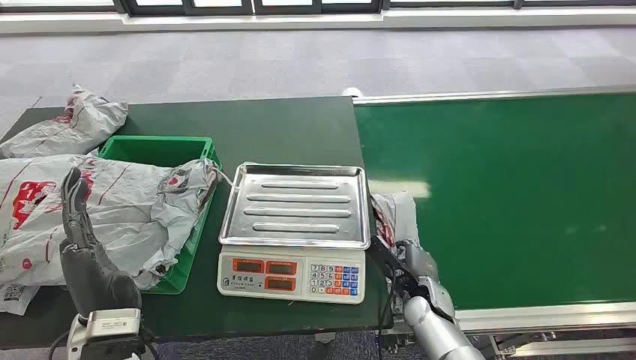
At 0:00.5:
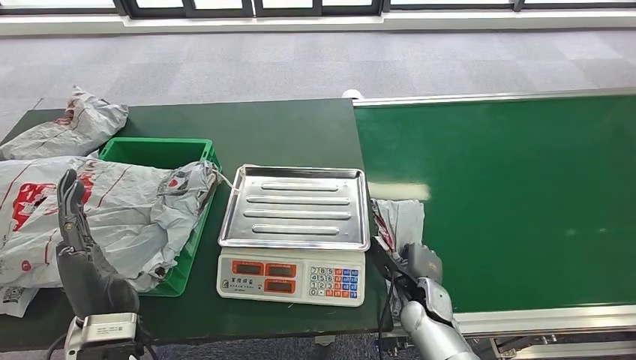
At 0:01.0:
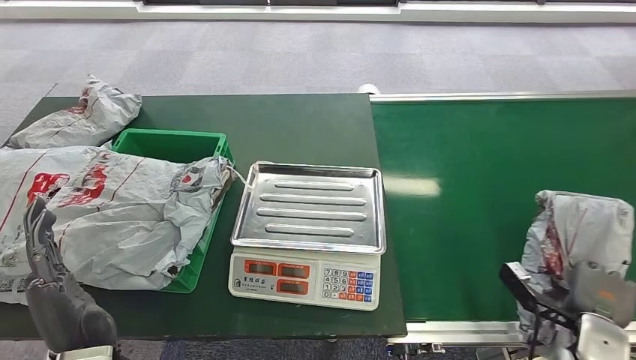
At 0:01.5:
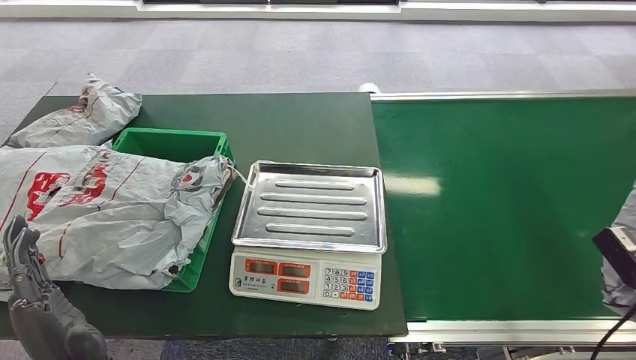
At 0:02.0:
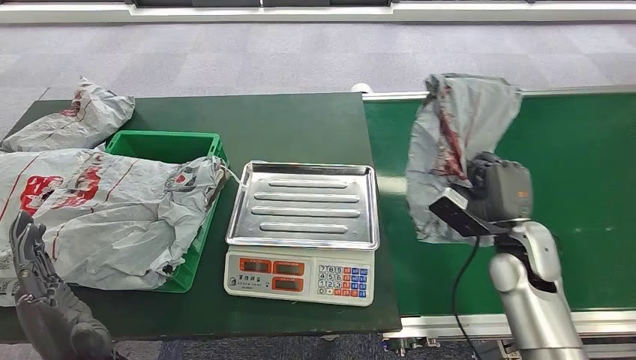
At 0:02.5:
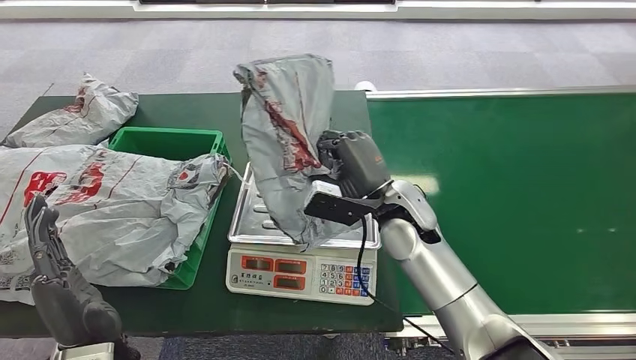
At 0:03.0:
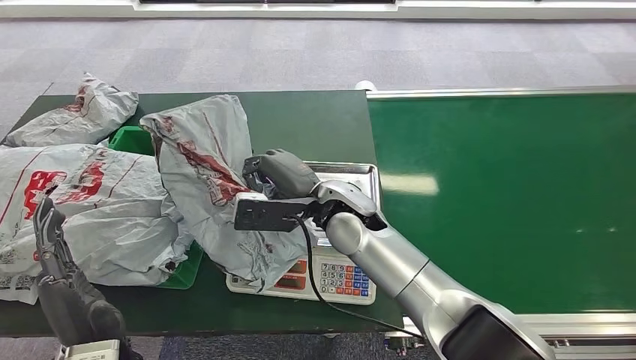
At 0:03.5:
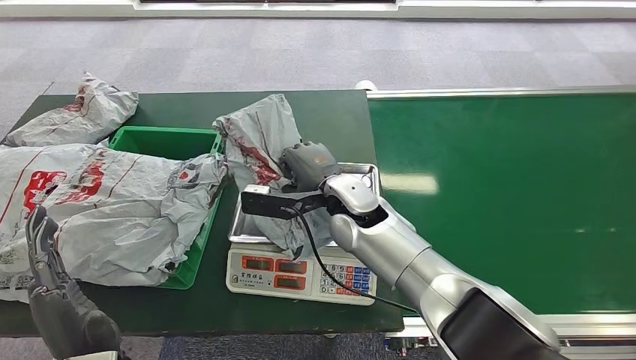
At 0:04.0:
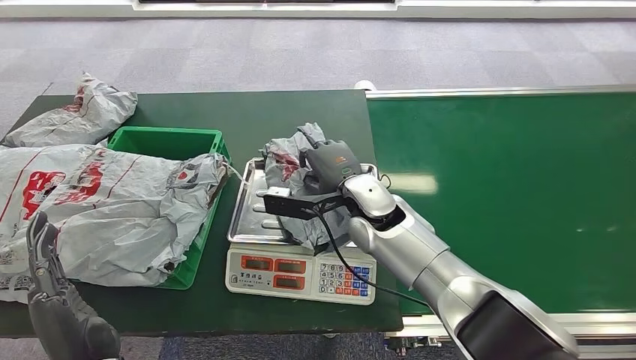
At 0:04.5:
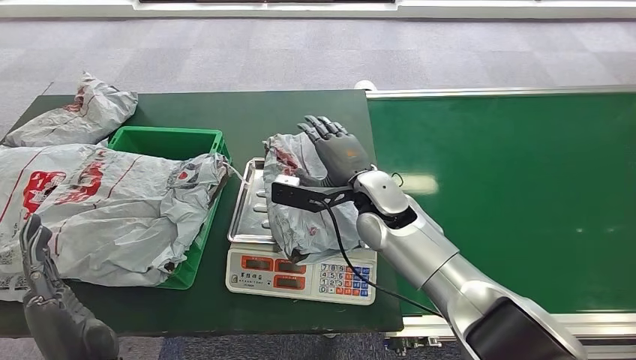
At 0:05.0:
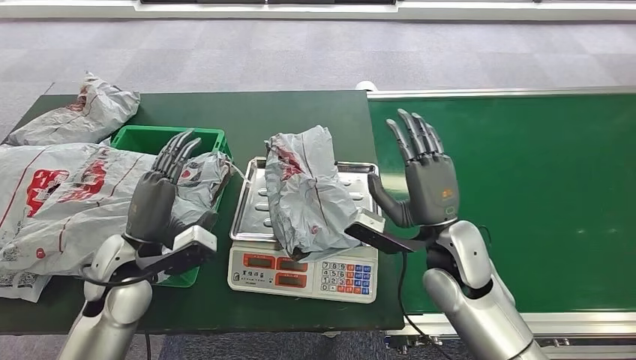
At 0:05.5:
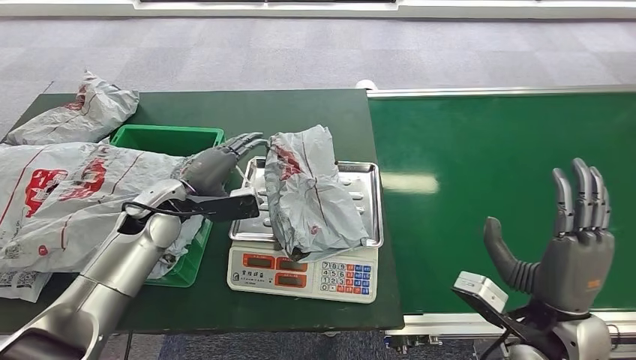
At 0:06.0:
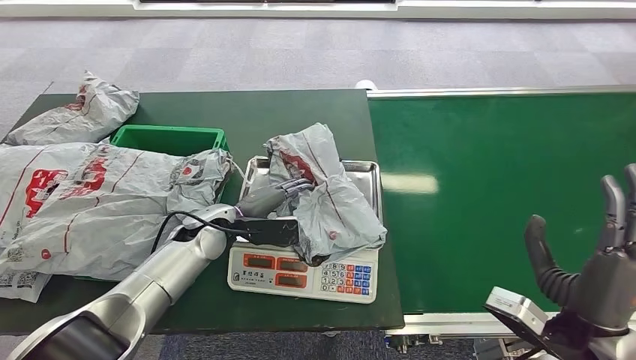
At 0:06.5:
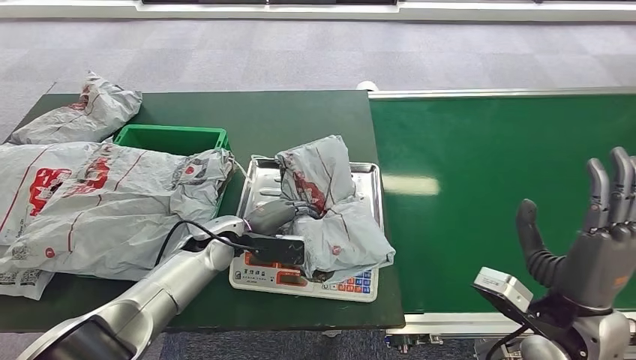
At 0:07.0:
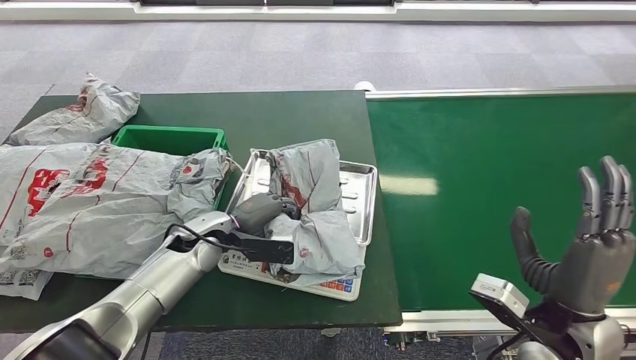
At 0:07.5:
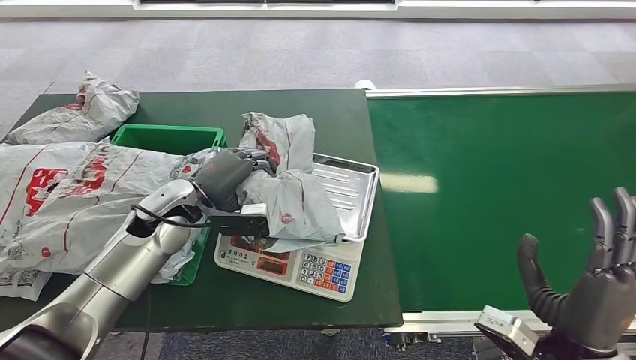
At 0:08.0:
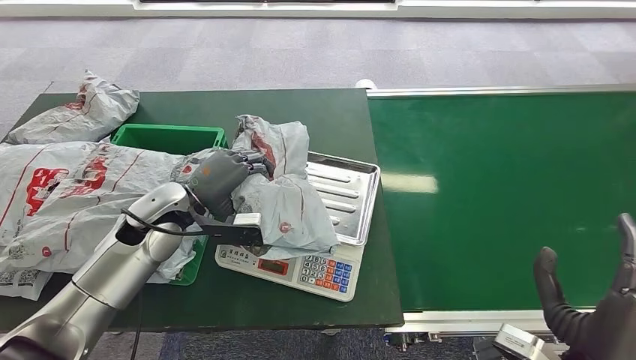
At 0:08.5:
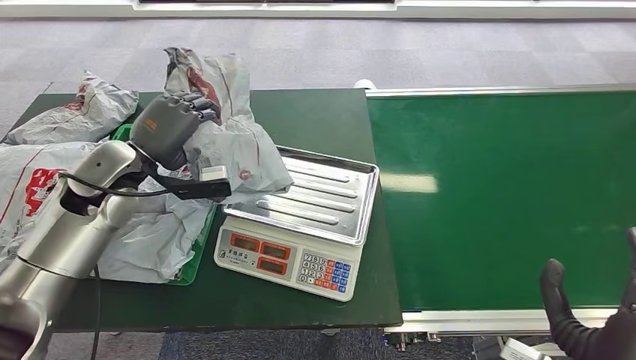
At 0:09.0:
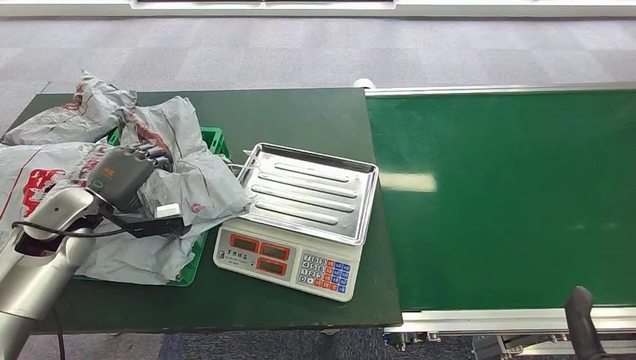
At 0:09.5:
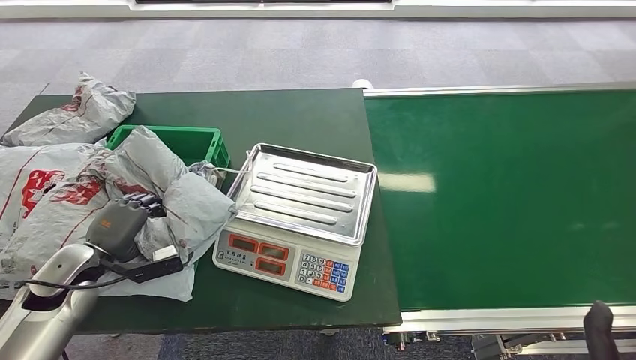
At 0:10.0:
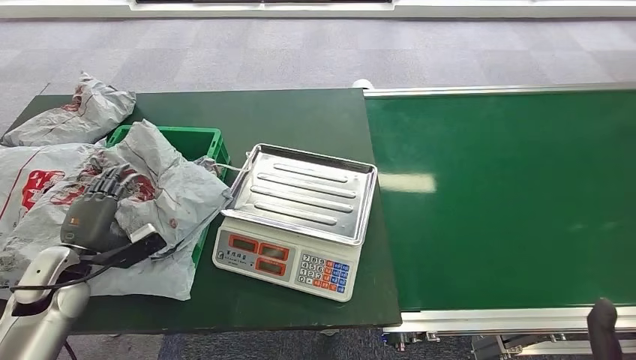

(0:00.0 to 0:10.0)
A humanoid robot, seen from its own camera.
Task of the whole recording: Weigh the package on the weighing device and place it in the left basket.
Step, 0:00.0 - 0:01.0: Pick up the package from the conveyor belt.
Step, 0:01.5 - 0:04.5: Place the package onto the inbound machine.
Step, 0:05.0 - 0:07.5: Pick up the package from the inbound machine.
Step, 0:08.0 - 0:10.0: Place the package into the parcel locker.
